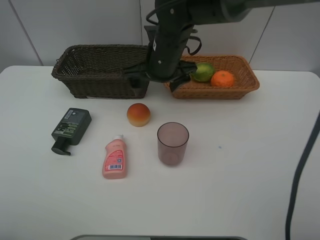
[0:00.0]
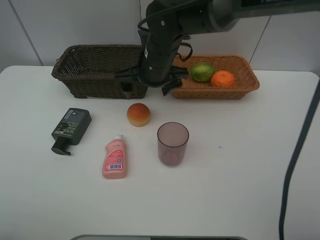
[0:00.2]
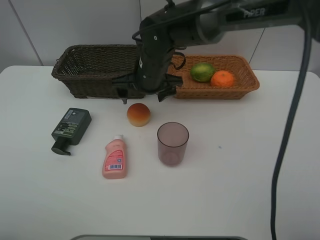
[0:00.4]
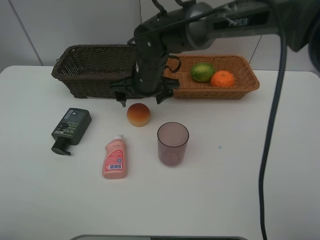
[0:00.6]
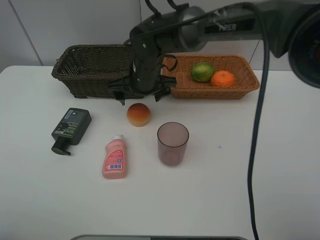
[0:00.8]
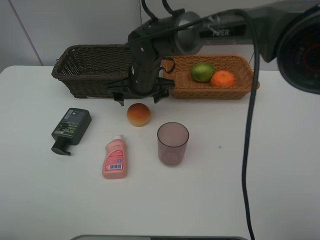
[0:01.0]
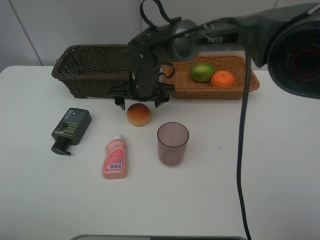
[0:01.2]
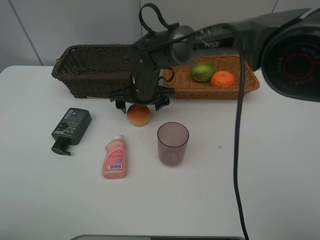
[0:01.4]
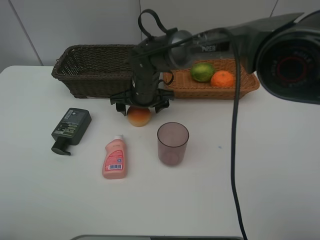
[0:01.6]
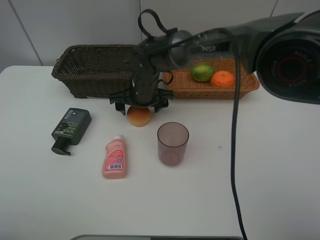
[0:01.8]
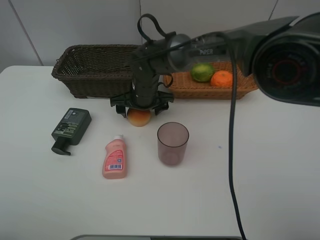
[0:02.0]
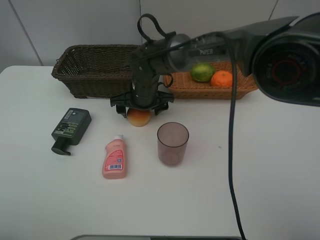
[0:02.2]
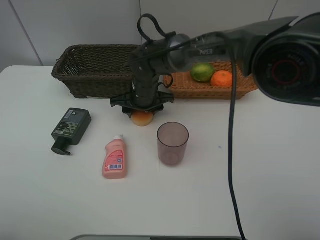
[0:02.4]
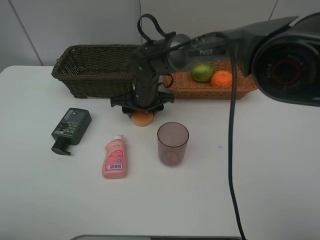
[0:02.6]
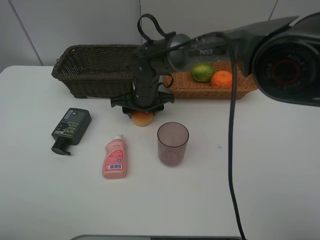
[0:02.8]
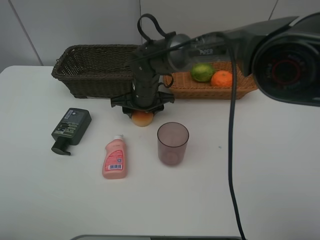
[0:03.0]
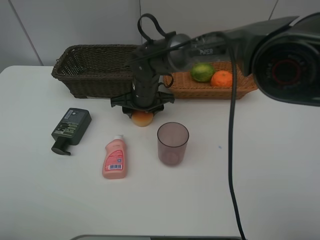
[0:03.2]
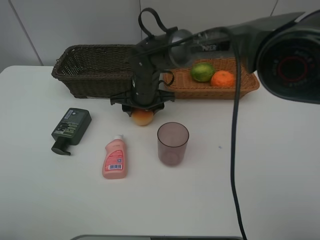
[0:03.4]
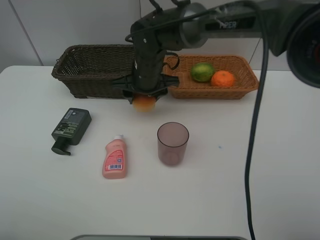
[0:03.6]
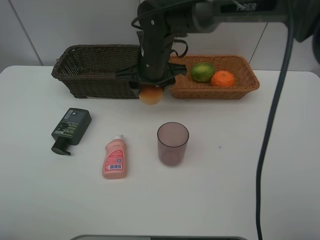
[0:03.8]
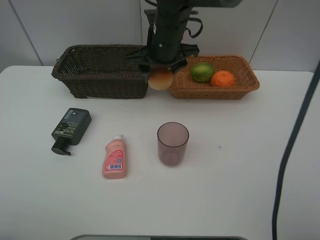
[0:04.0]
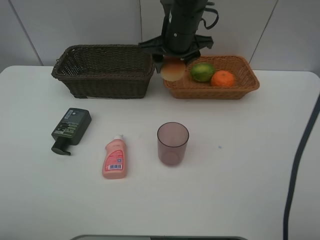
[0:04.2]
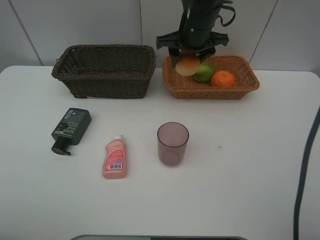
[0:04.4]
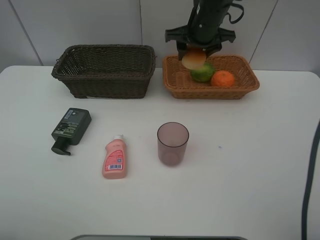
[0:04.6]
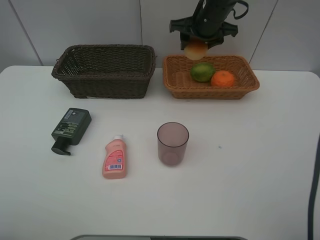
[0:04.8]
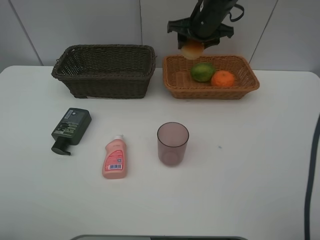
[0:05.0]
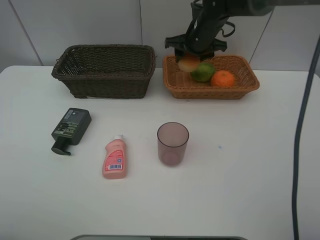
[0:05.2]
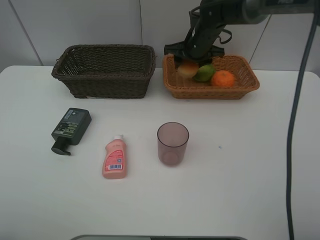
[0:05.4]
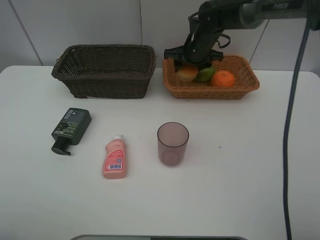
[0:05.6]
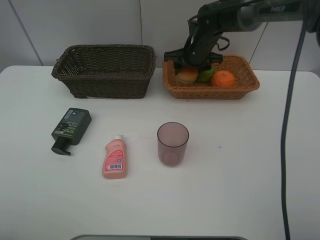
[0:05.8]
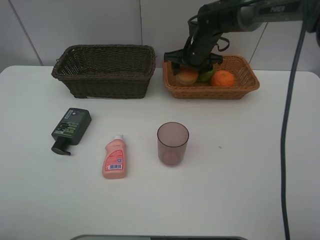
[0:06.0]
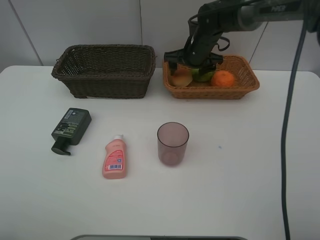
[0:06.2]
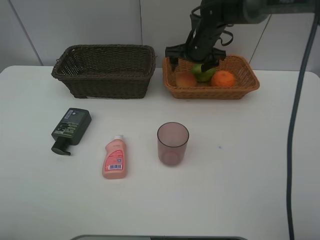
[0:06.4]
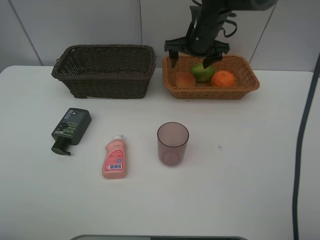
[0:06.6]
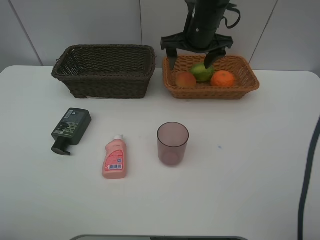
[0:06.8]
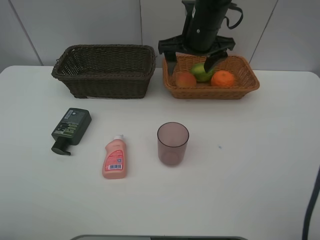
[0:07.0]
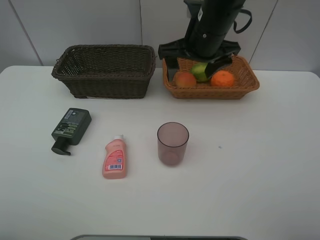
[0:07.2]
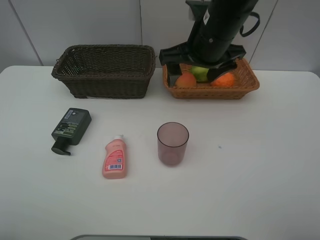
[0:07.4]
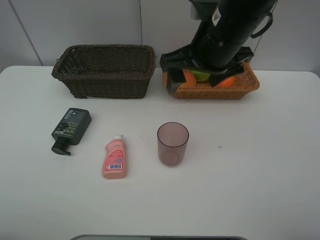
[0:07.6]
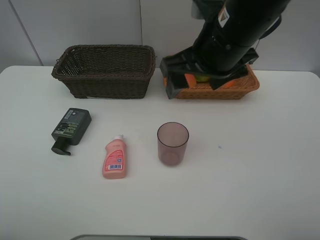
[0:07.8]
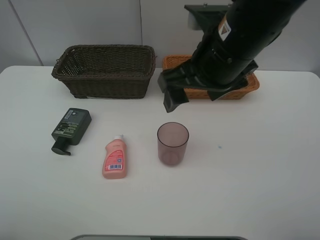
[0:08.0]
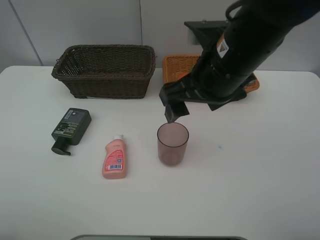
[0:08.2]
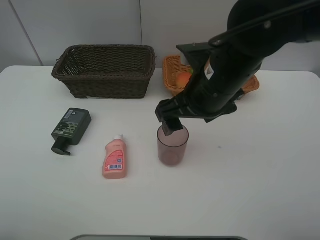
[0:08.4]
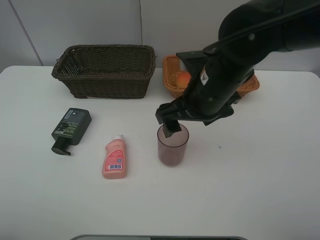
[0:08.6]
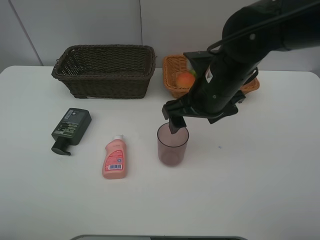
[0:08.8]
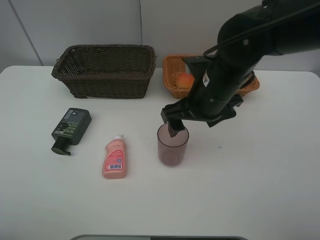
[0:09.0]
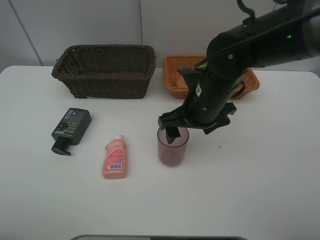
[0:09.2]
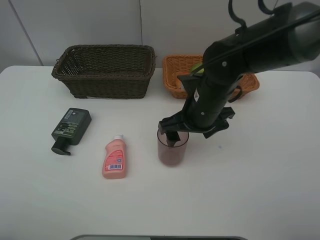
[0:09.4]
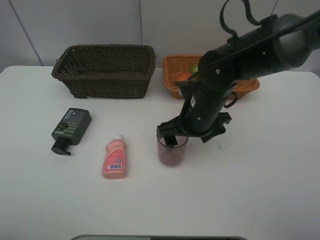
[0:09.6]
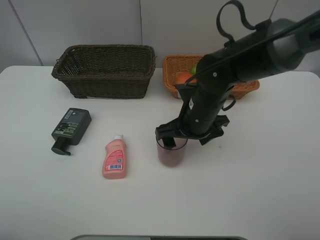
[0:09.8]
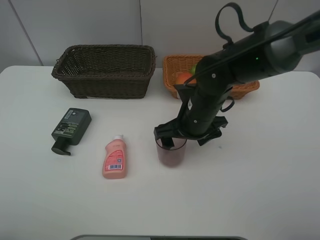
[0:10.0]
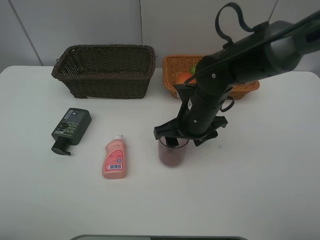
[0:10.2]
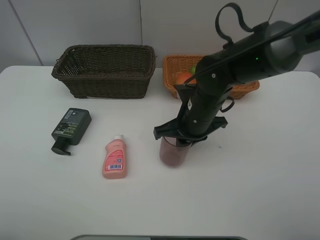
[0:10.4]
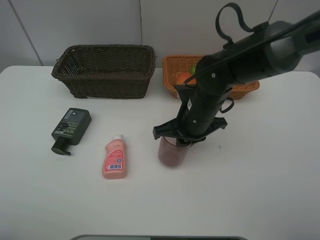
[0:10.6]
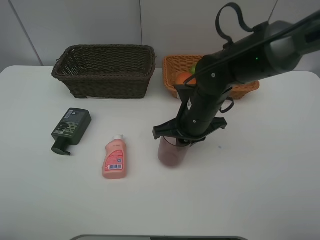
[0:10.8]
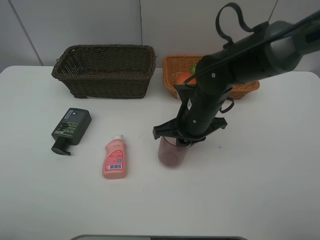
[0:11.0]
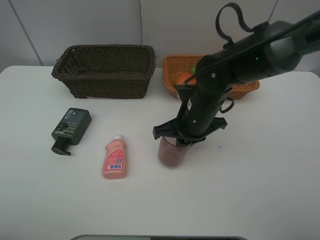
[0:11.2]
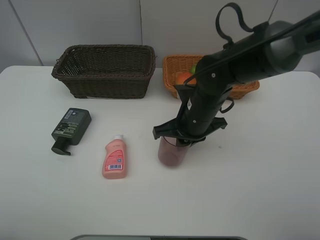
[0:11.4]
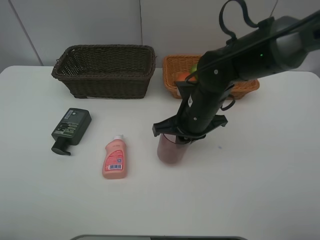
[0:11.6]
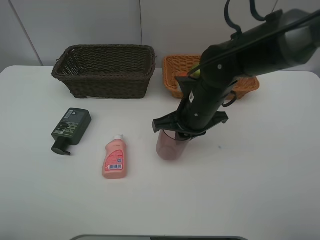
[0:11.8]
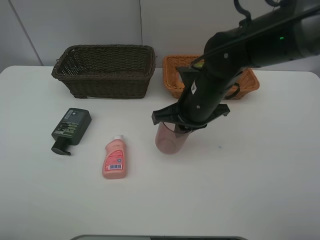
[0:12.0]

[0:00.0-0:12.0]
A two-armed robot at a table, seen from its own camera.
Task of the whole recording: place multiple objects separately in different baskets.
0:00.0 to 0:01.6: The right gripper shifts some 10 cm downward.
0:01.6 to 0:03.0: Neither gripper changes place.
0:03.0 to 0:04.4: The right gripper travels upward and to the right by some 20 cm.
0:04.4 to 0:06.0: The right gripper moves downward and forward, roughly 10 cm.
0:06.0 to 0:07.6: The right gripper goes some 25 cm backward and upward.
0:07.6 to 0:09.0: The right gripper moves downward, about 10 cm.
0:09.0 to 0:10.4: The right gripper moves downward, some 5 cm, and closes its fingers.
0:10.4 to 0:12.0: The grippers make only small movements.

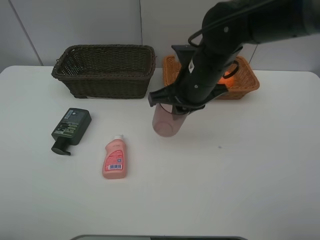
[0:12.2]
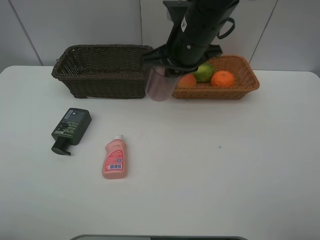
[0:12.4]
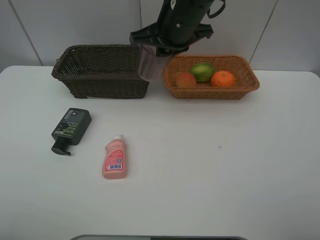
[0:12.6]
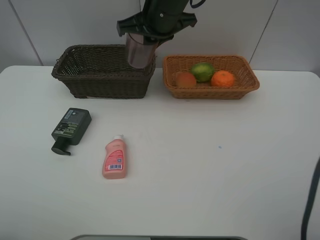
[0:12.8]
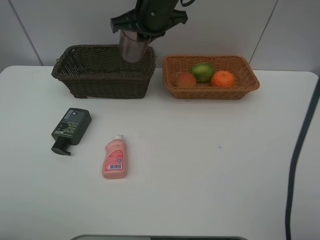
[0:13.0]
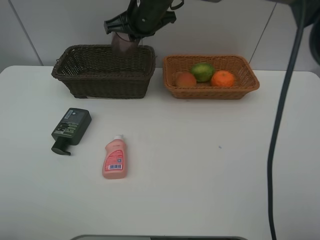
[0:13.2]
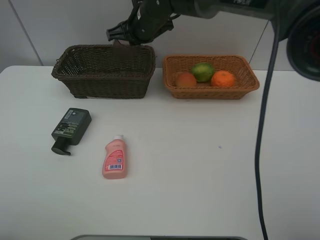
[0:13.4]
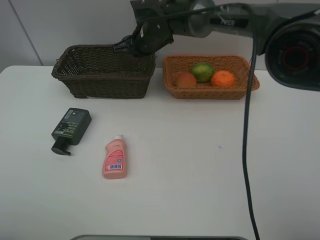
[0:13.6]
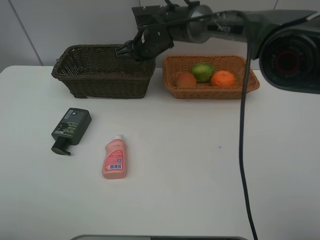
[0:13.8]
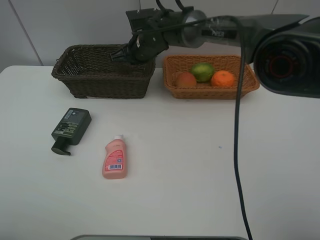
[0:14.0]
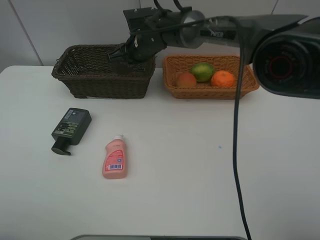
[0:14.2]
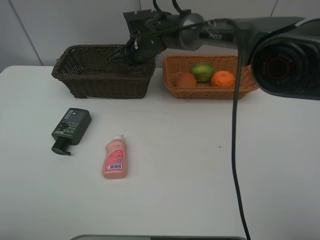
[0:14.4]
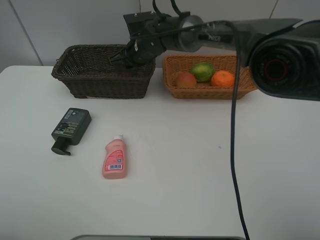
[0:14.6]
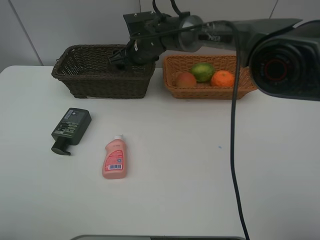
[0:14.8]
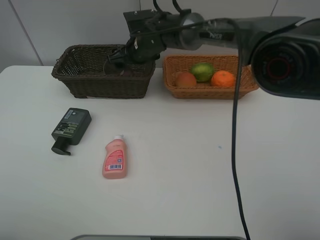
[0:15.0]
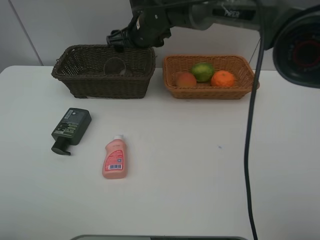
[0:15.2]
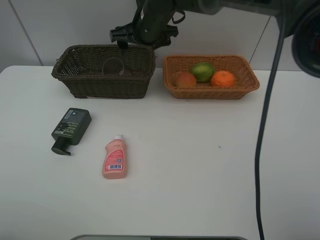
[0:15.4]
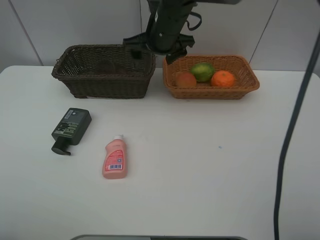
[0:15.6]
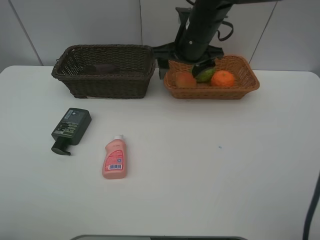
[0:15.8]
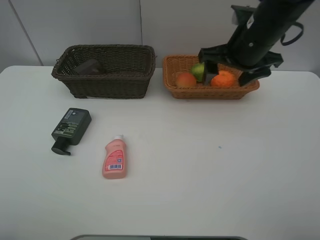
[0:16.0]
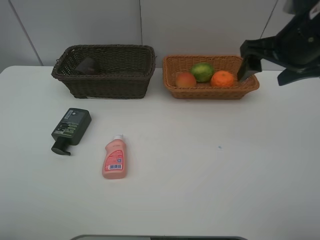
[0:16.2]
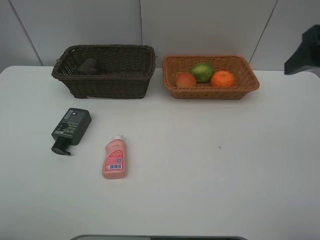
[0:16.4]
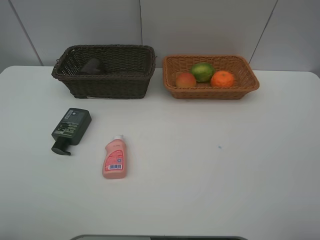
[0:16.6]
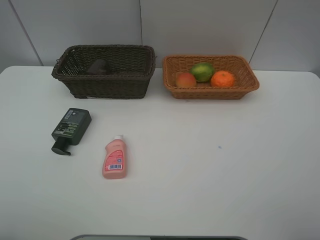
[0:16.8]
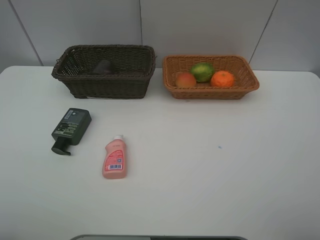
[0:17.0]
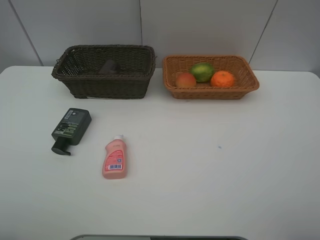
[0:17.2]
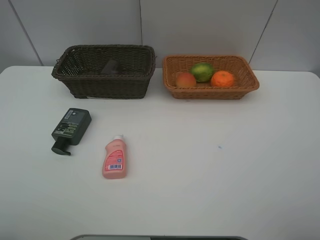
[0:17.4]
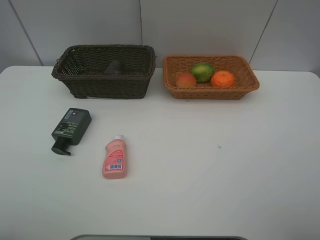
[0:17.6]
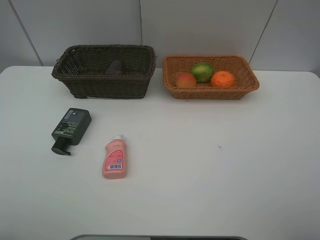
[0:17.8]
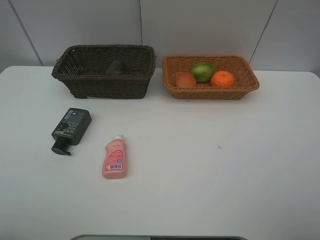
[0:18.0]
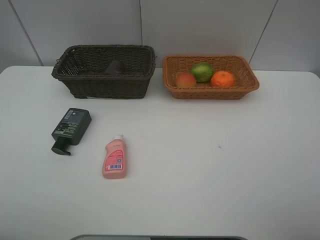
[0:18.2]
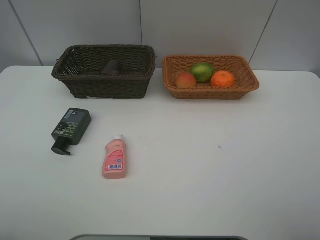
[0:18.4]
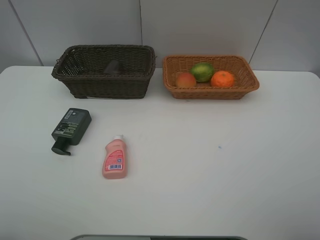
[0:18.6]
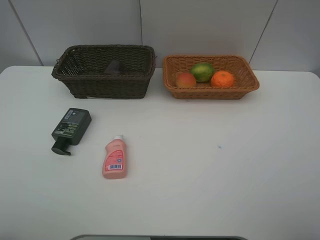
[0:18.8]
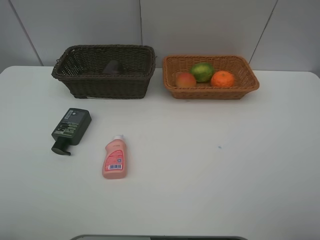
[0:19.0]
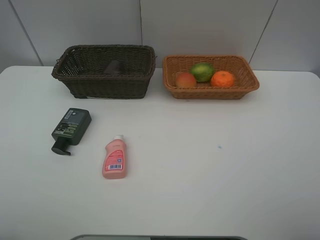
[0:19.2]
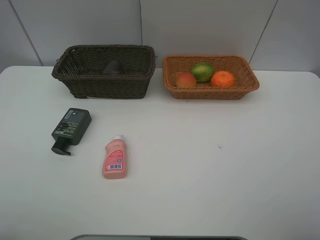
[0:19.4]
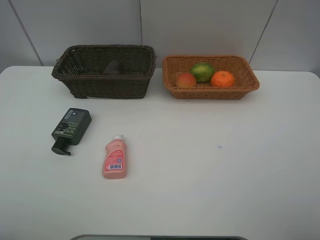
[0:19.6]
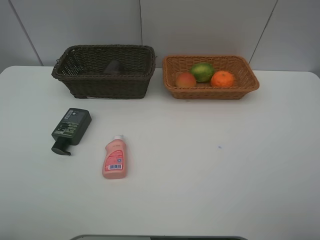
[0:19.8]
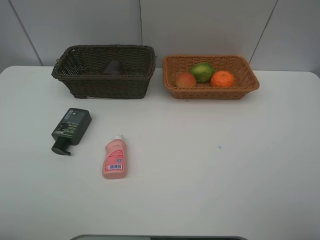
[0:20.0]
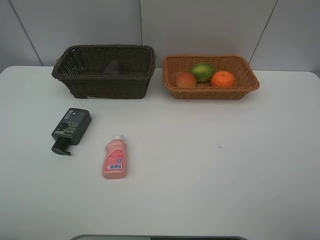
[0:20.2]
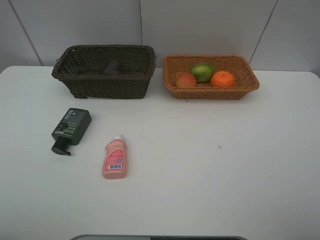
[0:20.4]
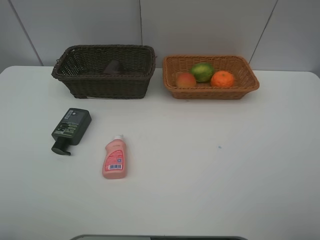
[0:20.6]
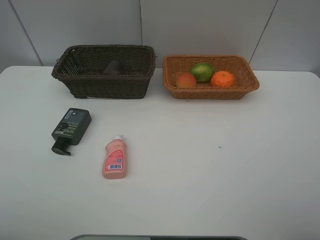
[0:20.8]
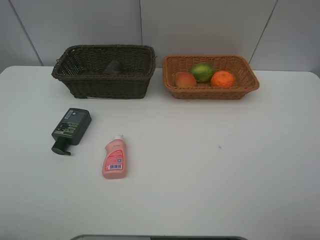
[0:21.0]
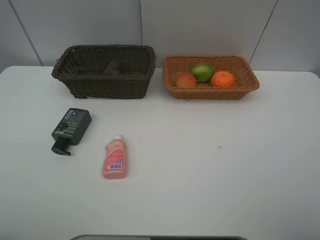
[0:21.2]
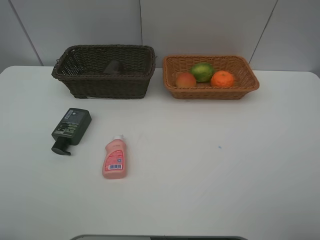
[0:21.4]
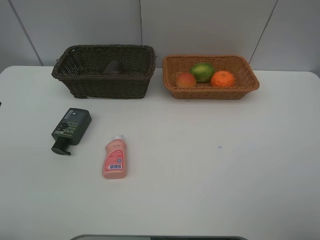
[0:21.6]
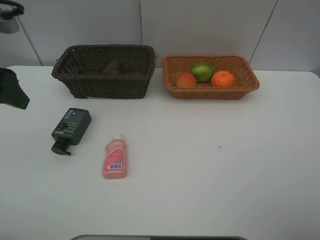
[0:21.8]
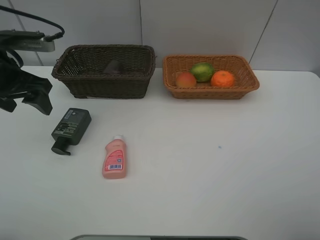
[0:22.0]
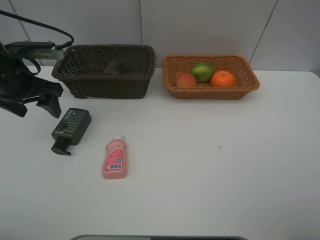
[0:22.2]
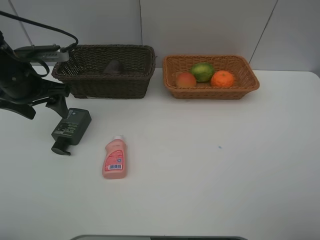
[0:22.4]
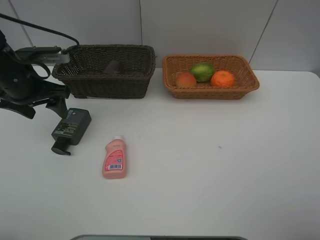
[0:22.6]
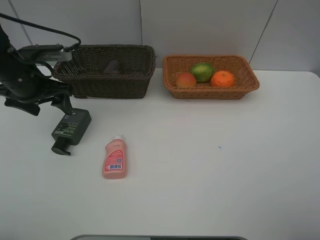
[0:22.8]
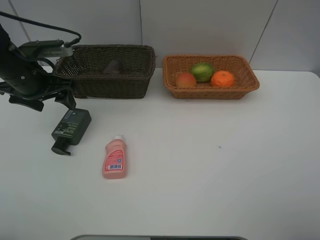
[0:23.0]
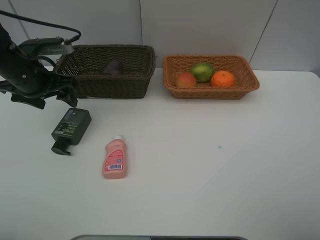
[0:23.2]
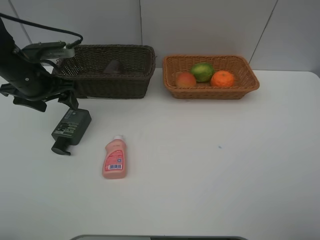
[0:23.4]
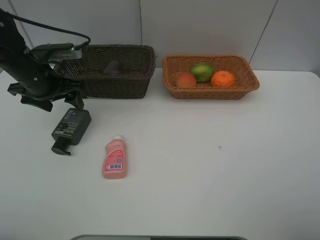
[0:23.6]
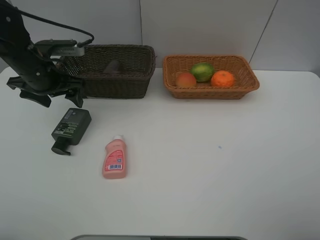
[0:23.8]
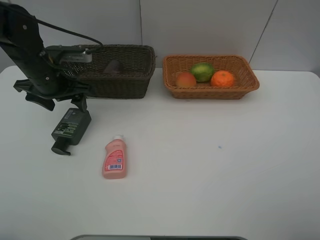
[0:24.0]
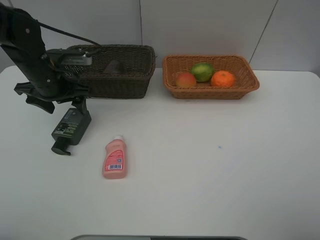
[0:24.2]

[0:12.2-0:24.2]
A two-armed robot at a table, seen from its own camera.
Task of the whole recording: place multiple objects separately in different baskets.
0:12.2 to 0:13.8: The right gripper shifts some 20 cm forward and to the left.
0:13.8 to 0:15.2: The right gripper opens its fingers.
0:15.2 to 0:16.6: The right gripper shifts roughly 50 cm backward, to the right and upward.
0:21.2 to 0:22.6: The left gripper is displaced forward and downward by roughly 30 cm.
0:22.6 to 0:24.2: The left gripper shifts by roughly 5 cm.
